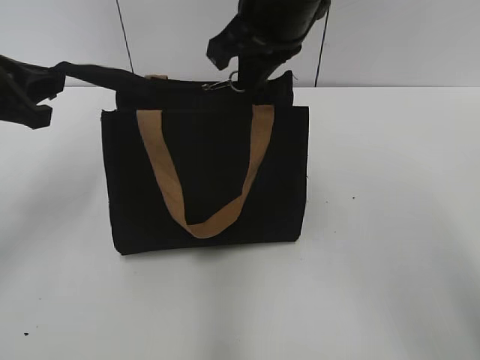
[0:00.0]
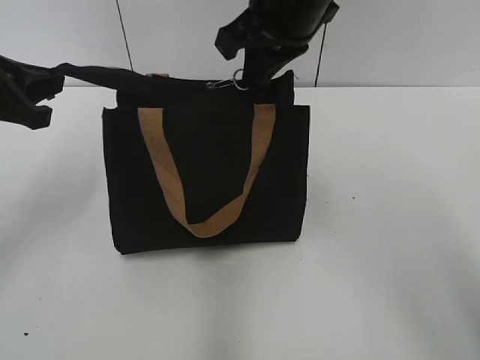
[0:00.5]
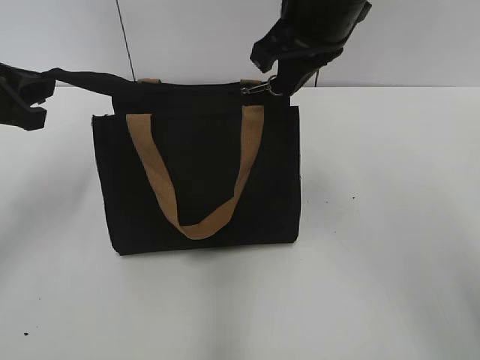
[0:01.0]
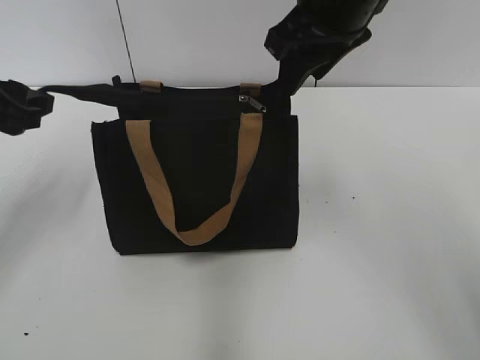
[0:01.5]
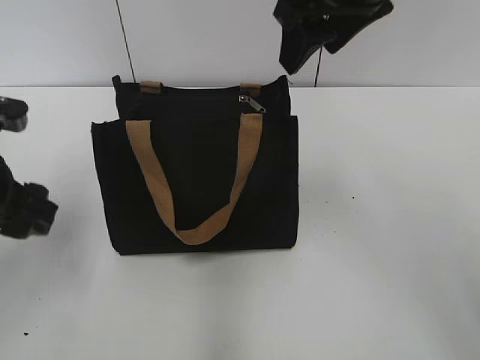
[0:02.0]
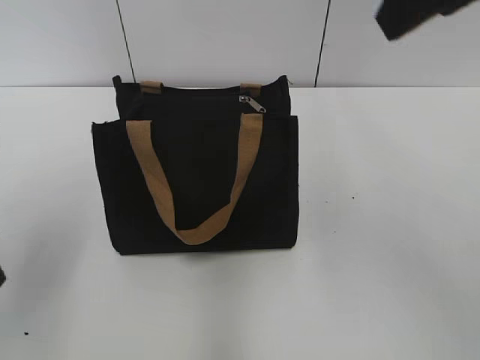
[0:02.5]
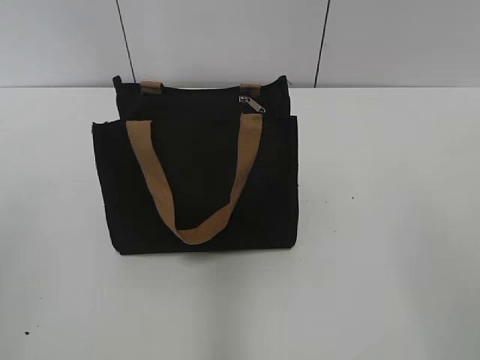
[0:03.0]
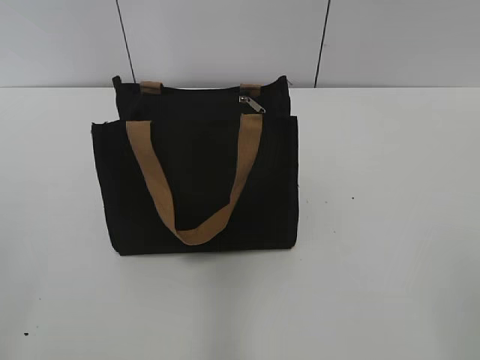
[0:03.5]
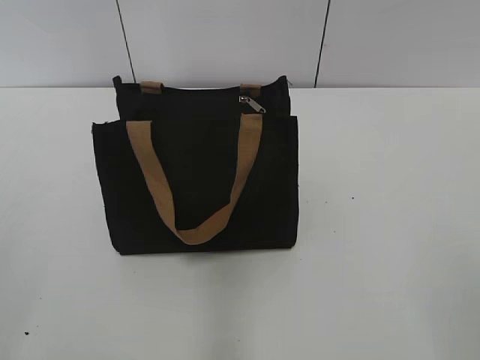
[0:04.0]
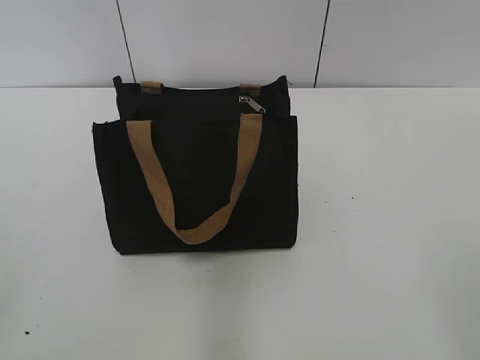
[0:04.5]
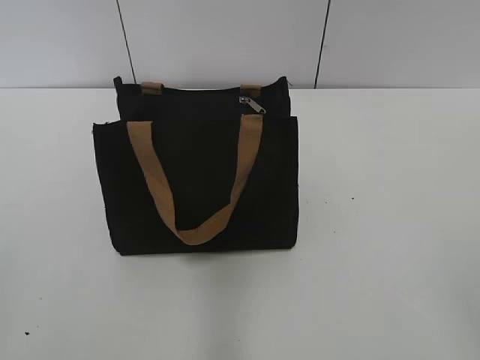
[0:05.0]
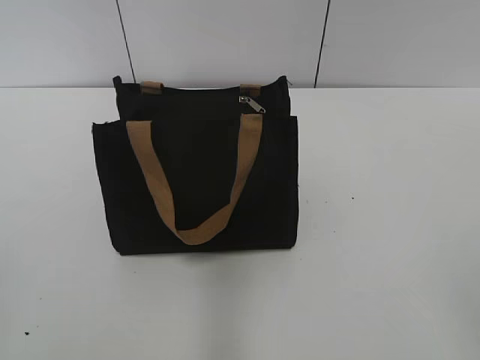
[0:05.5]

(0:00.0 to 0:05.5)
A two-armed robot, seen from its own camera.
0:00.0 - 0:02.0: The left gripper ends up approximately 5 cm from where it was, and opens its fingers. The right gripper goes about 5 cm to the right, and opens its fingers.
0:02.0 - 0:03.5: The right gripper heads backward and to the right, covering about 40 cm. The left gripper travels backward by roughly 20 cm.
